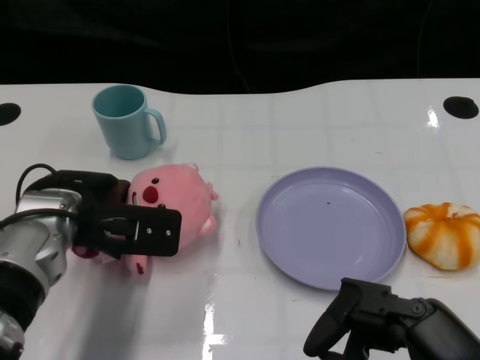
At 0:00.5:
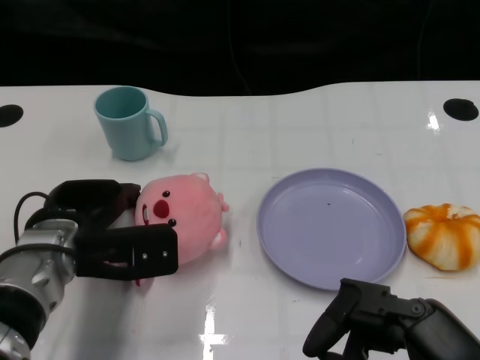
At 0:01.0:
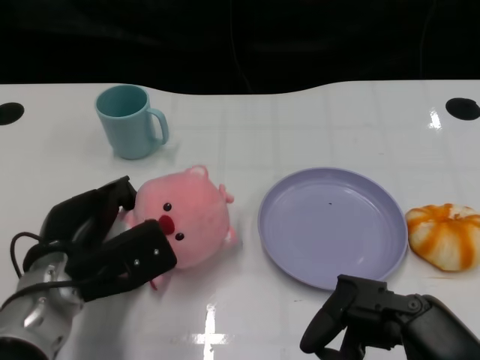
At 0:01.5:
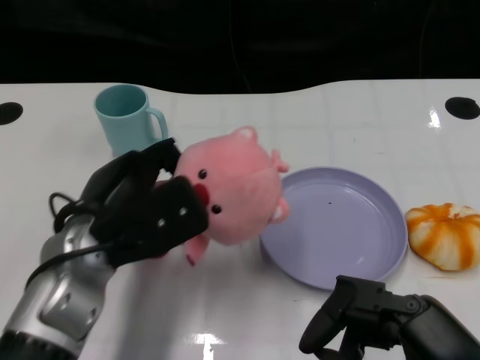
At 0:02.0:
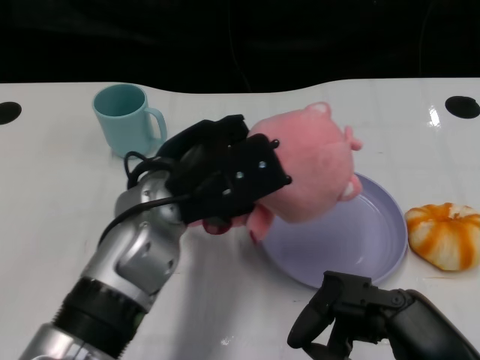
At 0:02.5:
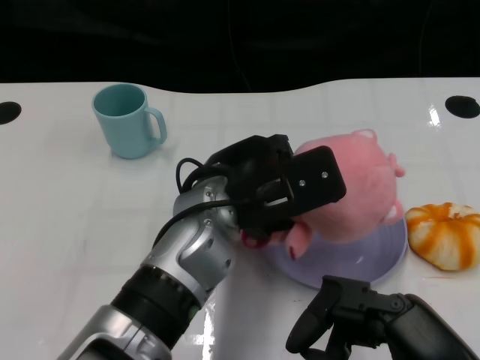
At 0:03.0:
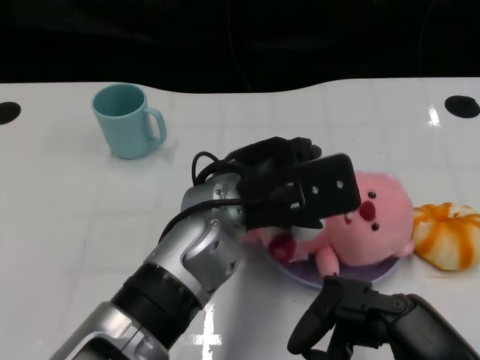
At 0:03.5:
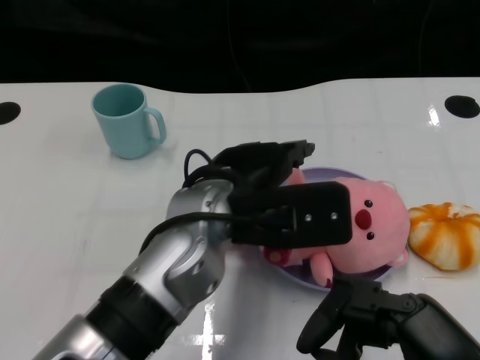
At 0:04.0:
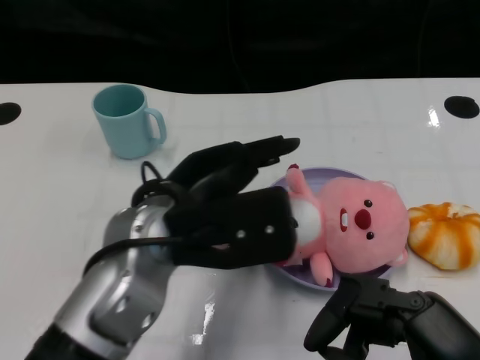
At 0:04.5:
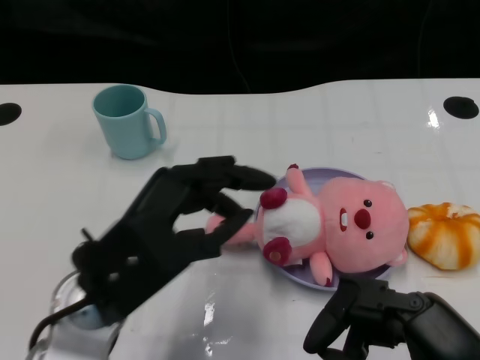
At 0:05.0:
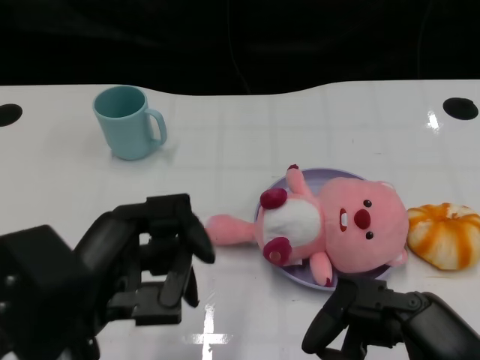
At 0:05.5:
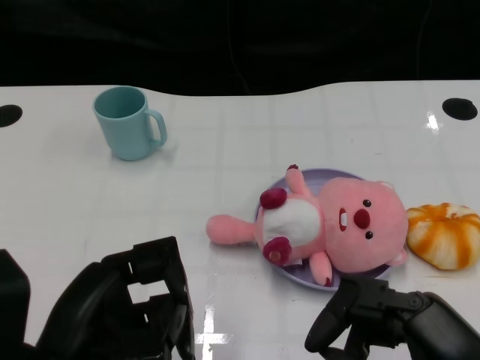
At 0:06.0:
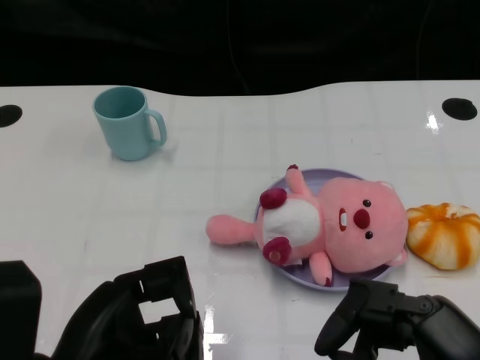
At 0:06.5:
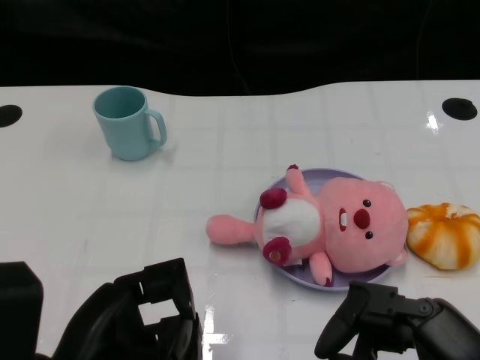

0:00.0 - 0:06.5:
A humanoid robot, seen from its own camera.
Task of the whole recording: Pick up the doll on one side of the plate and place it into the plate.
Step, 0:01.5 - 0:03.0: Place the pink doll into the plate with the left gripper.
0:00.0 - 0:02.0: The left hand heads to the right, covering about 10 cm.
0:02.0 - 0:04.5: The left hand travels backward and to the left by roughly 10 cm.
0:04.5 - 0:06.5: The left hand goes roughly 10 cm backward.

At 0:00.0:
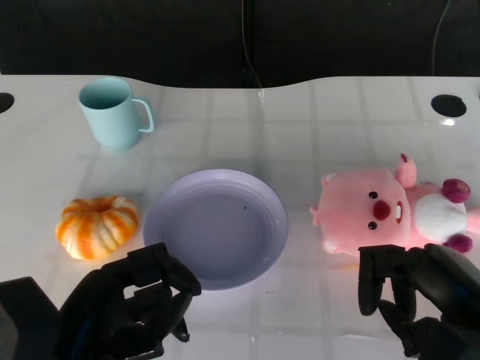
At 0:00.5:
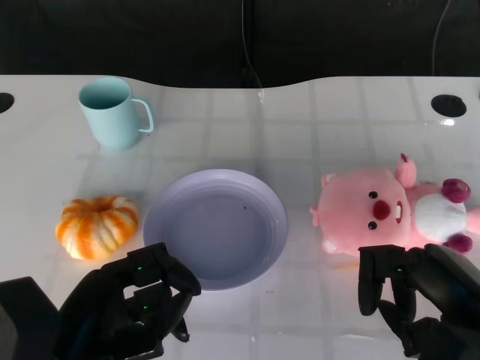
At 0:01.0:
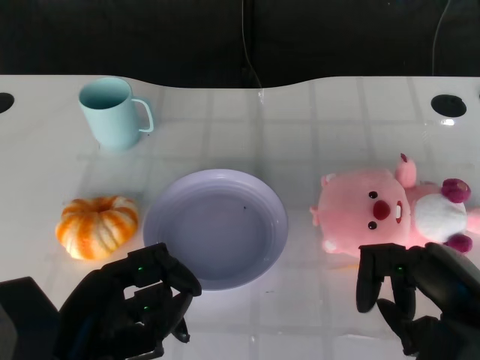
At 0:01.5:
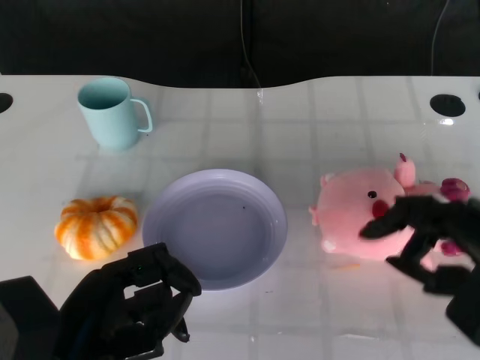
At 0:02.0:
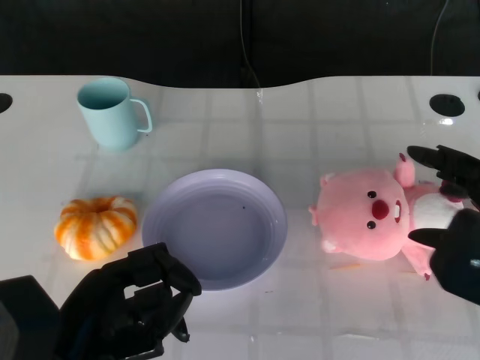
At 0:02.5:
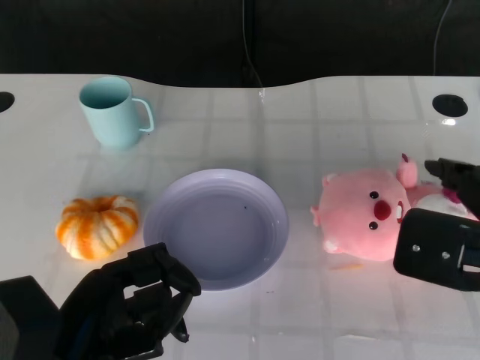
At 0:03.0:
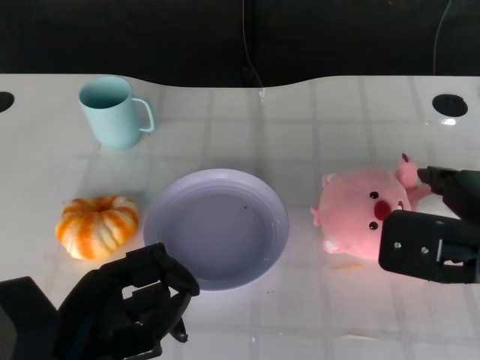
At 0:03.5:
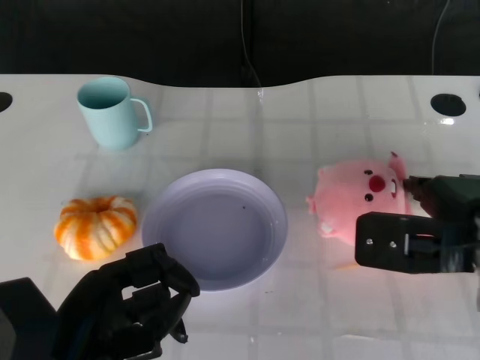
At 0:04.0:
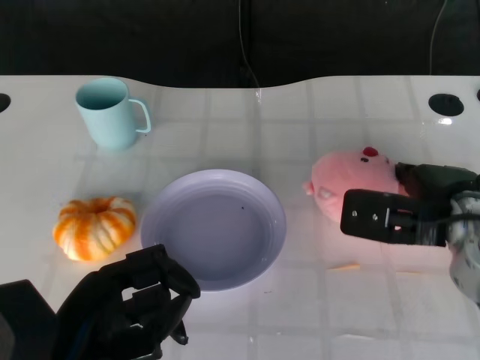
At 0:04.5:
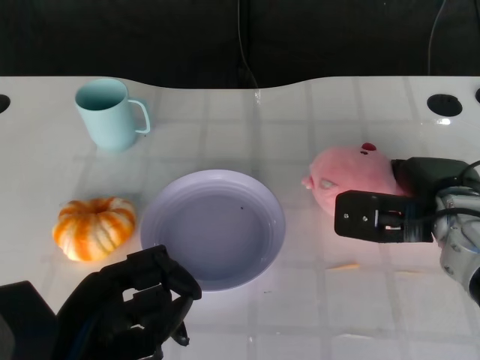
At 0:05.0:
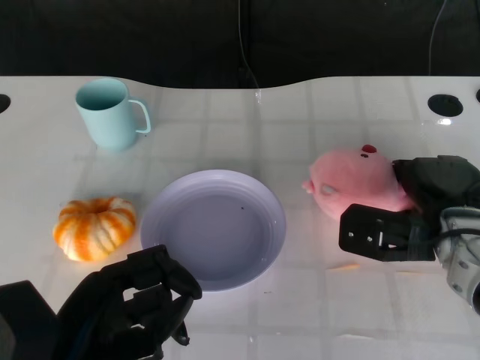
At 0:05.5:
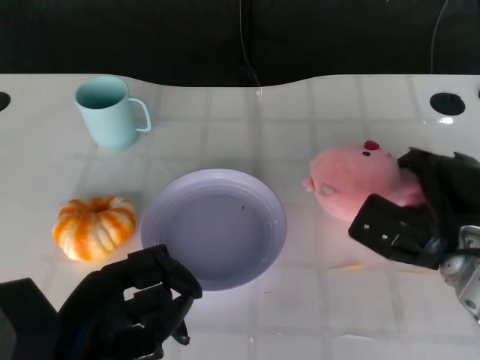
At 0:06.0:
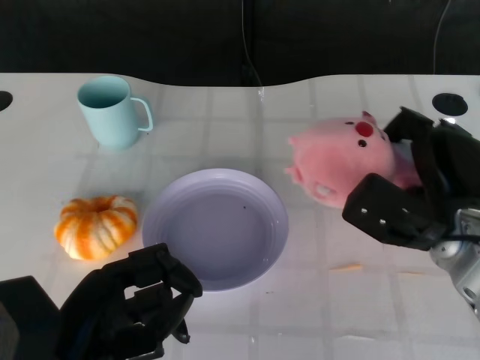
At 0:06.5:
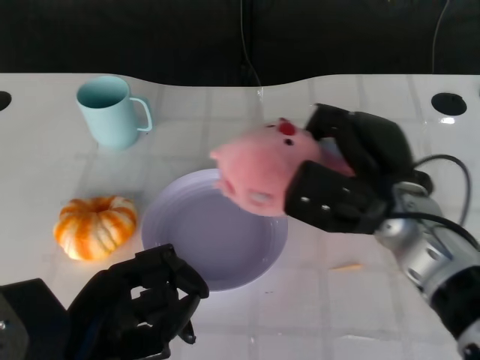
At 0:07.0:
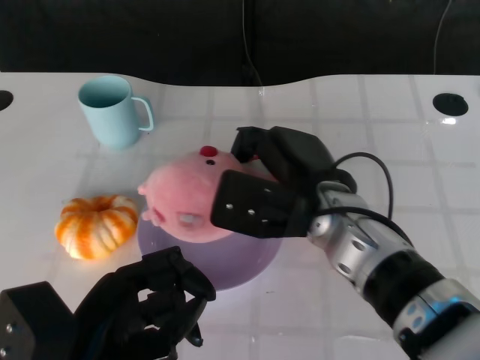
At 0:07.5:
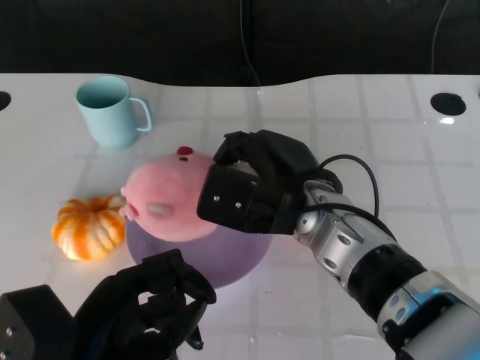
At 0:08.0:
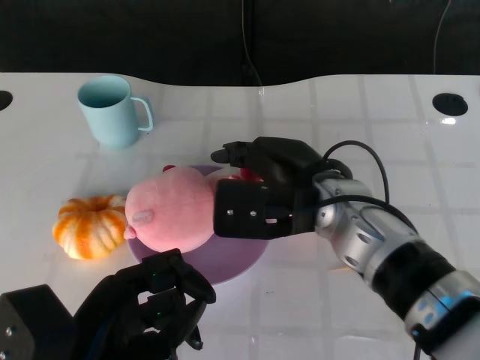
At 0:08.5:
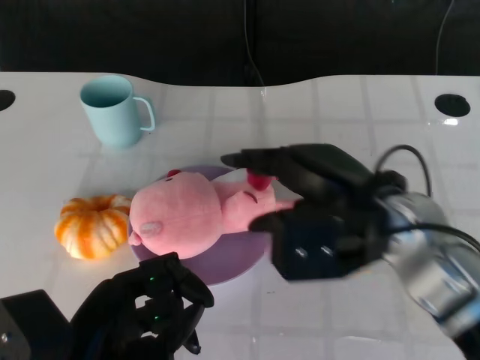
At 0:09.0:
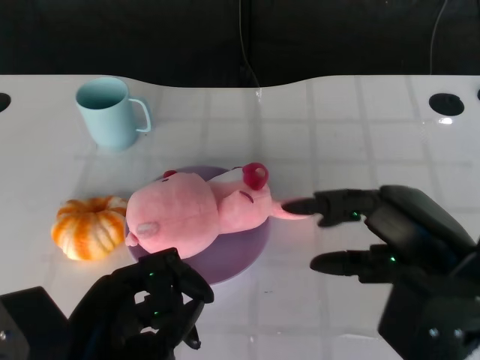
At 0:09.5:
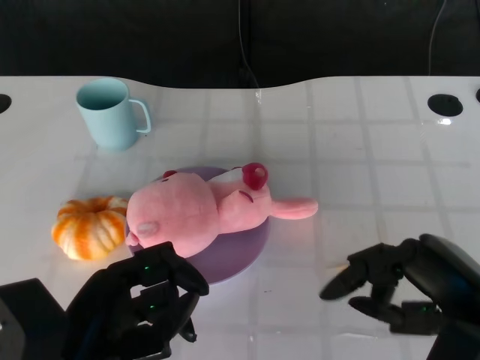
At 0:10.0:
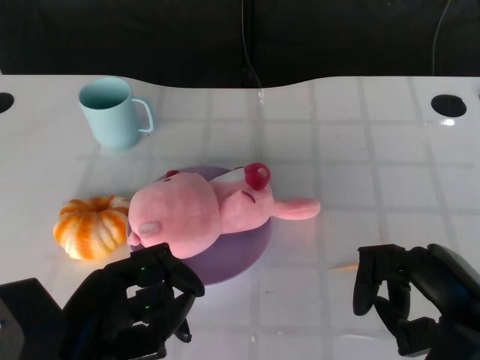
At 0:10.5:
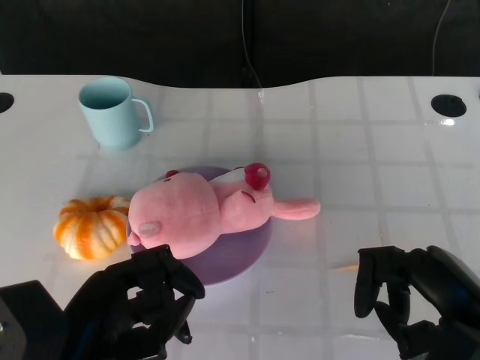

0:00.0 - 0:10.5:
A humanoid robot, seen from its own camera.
Task of the whole recording: Pick up the doll on the other side of the plate and place it into the plate.
Step, 0:01.0 - 0:05.5: Grasp the pink doll with the right gripper.
Step, 0:06.0 - 0:08.0: Place the pink doll into the plate with the right gripper.
0:02.0 - 0:04.0: The right hand moves forward and downward, some 15 cm.
0:04.0 - 0:06.5: The right hand goes roughly 5 cm to the left.
0:06.5 - 0:08.5: The right hand moves approximately 10 cm to the left and comes back.
0:08.5 - 0:10.5: The right hand is displaced to the right, backward and downward by approximately 15 cm.

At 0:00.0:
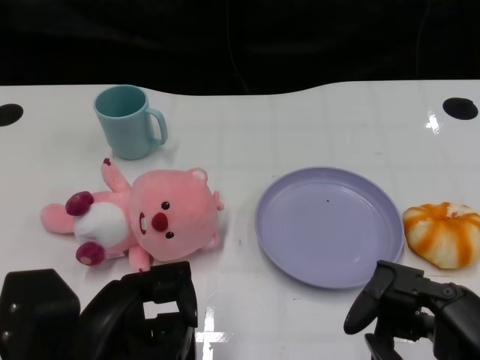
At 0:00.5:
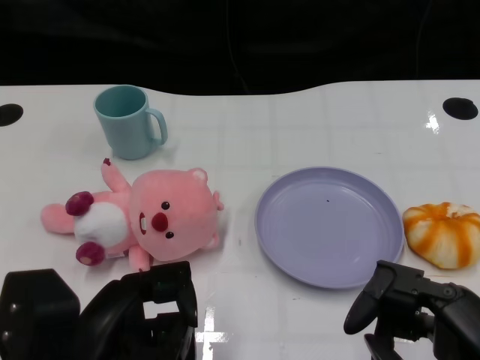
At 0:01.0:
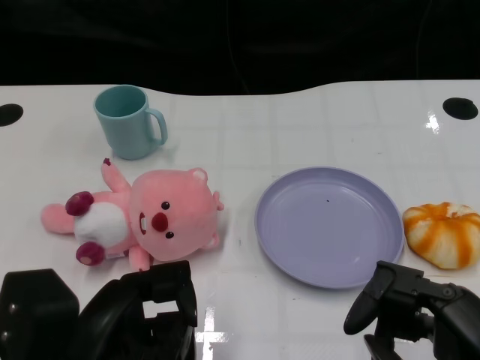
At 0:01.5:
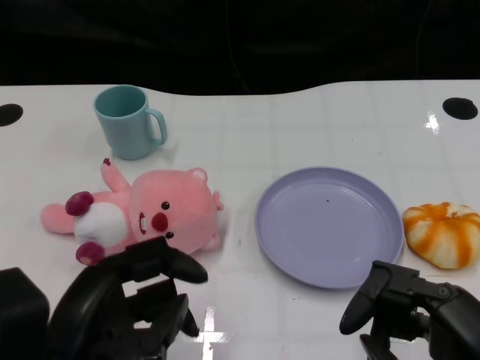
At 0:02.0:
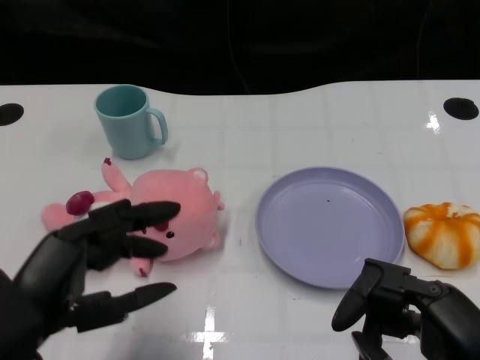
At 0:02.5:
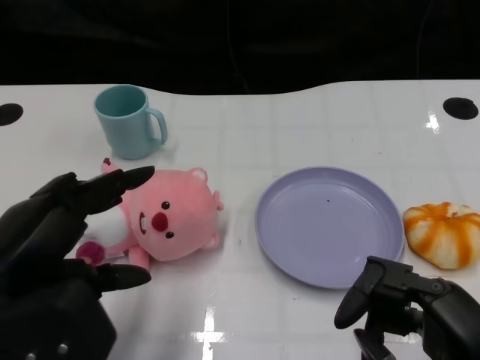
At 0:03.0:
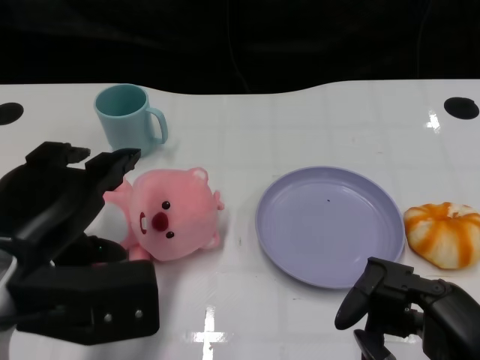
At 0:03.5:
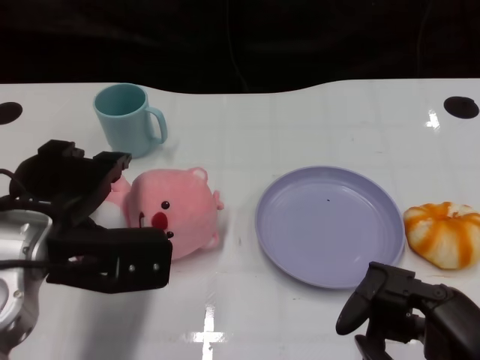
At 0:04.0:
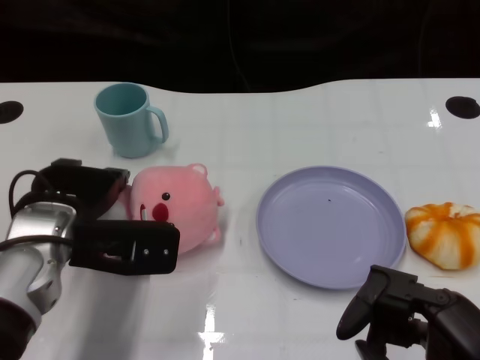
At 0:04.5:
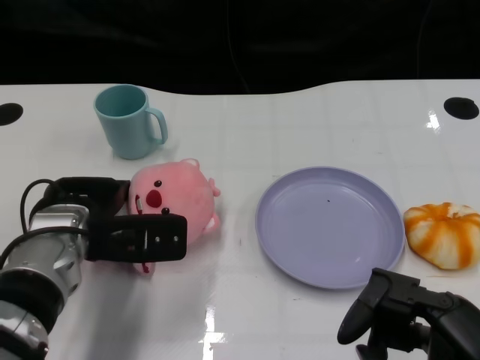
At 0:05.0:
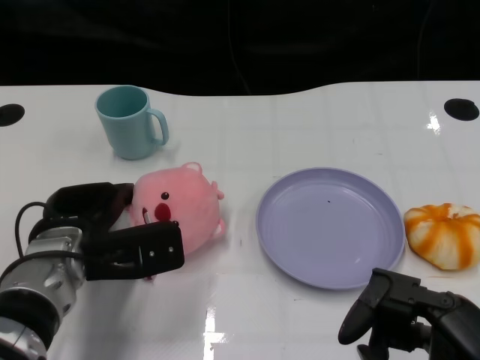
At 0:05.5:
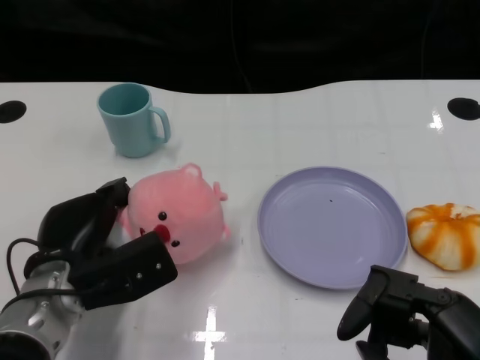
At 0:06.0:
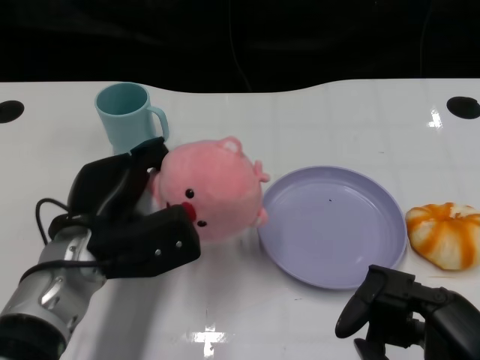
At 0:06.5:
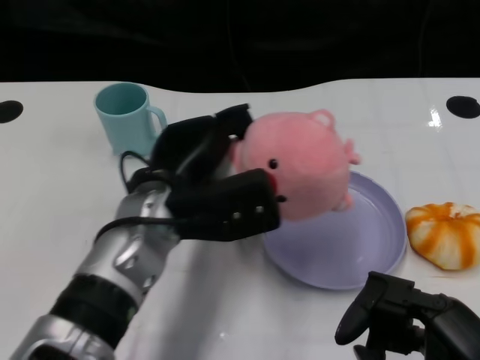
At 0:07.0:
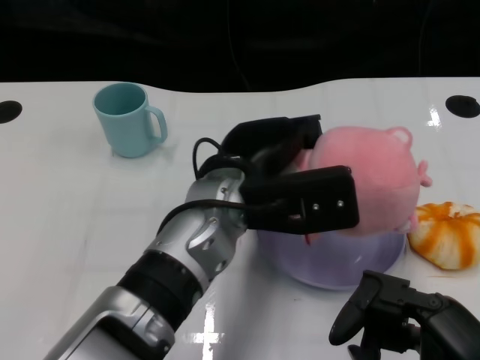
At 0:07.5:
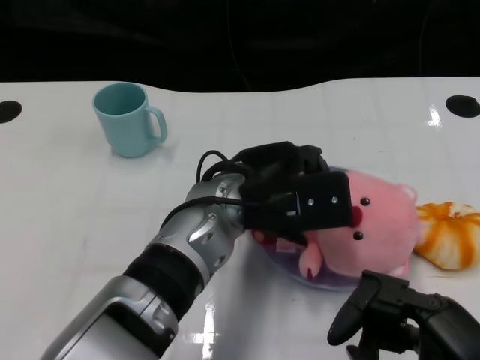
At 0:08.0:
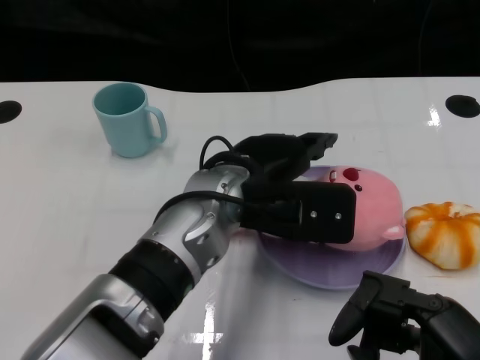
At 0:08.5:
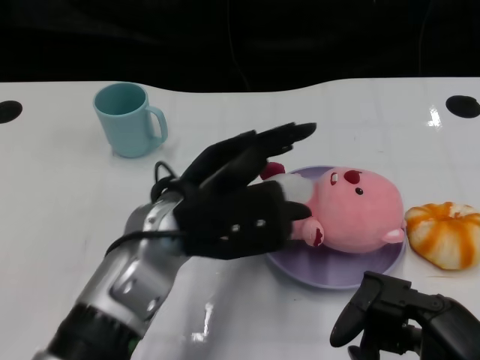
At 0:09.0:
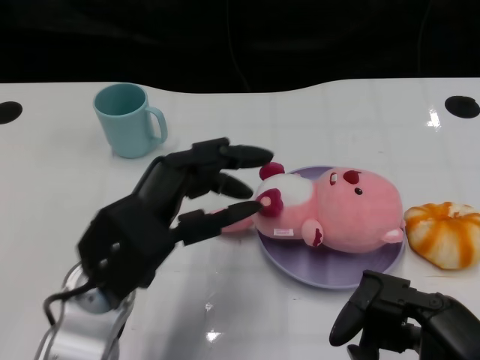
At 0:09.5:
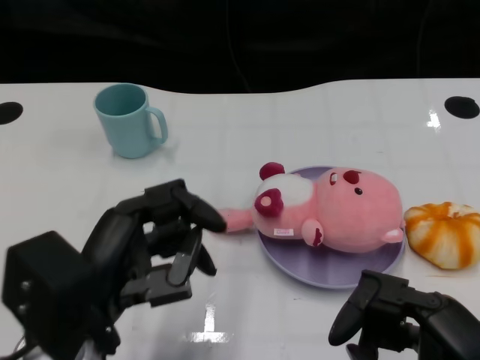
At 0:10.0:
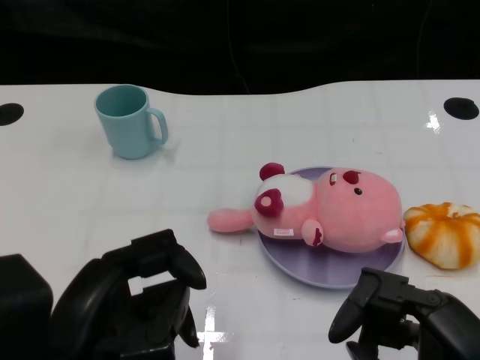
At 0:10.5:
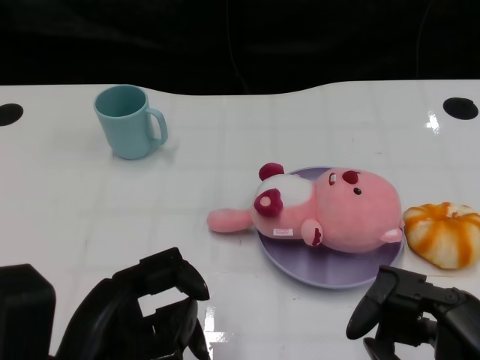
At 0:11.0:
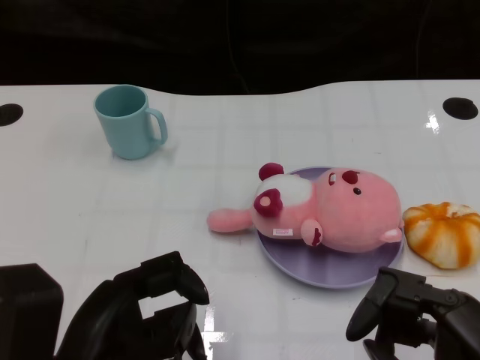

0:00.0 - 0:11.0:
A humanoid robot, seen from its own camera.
Task of the whole recording: Pick up the doll on one side of the plate and place it into the plate.
Step, 0:01.5 - 0:05.0: Grasp the pink doll with the left gripper.
Step, 0:05.5 - 0:08.0: Place the pink doll into the plate with the left gripper.
0:02.0 - 0:03.5: The left hand shifts approximately 10 cm forward.
0:03.5 - 0:05.5: The left hand goes roughly 10 cm downward.
0:05.5 - 0:07.5: The left hand shifts approximately 20 cm to the right and upward.
0:07.5 - 0:09.0: The left hand is displaced to the left and backward by some 15 cm.
0:09.0 - 0:11.0: The left hand shifts roughly 10 cm backward.
